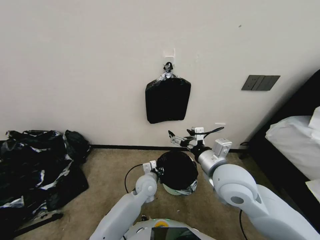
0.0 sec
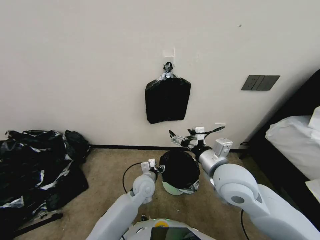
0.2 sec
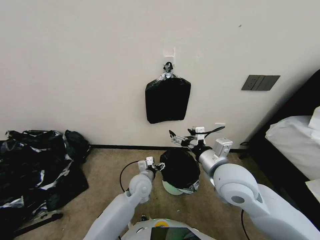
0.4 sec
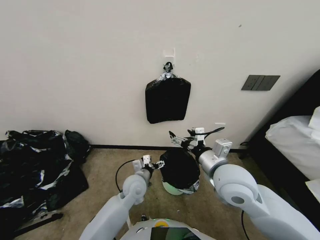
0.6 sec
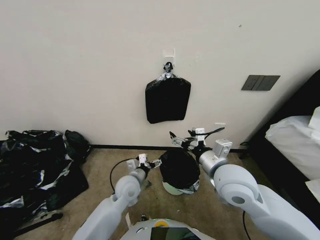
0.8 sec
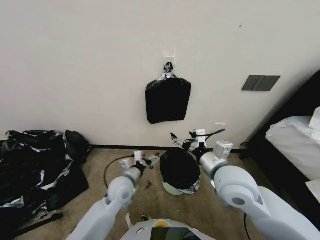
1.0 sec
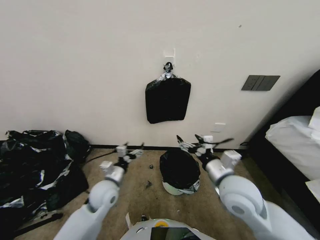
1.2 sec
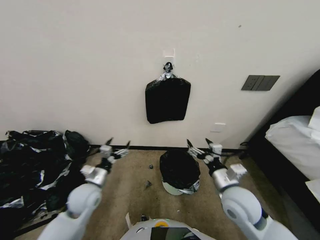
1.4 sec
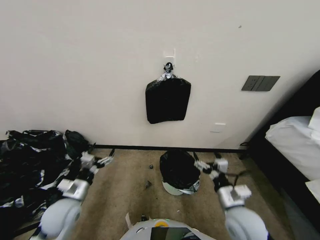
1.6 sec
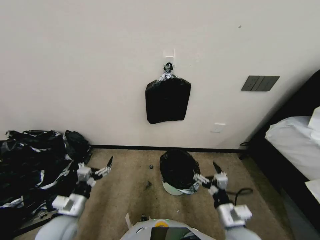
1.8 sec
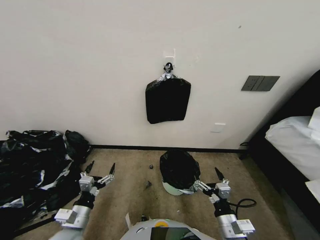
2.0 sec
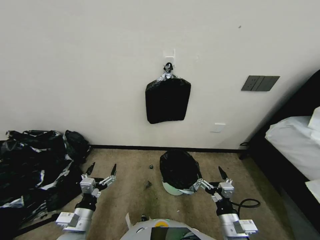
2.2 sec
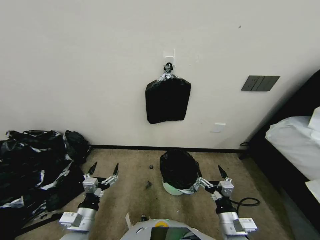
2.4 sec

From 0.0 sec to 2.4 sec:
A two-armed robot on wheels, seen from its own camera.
Task of the whole recording: Place a trash bag onto the trash bin.
From 0.0 sec to 1.2 sec: The left gripper moves to the left and upward, some 15 cm, and opens up.
From 1.2 sec to 2.4 sec: The left gripper travels backward and to the left by some 20 cm; the right gripper travels downward and backward by some 20 cm.
